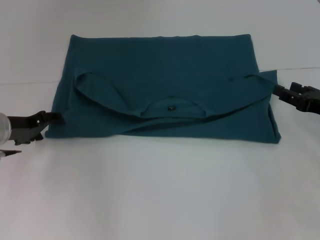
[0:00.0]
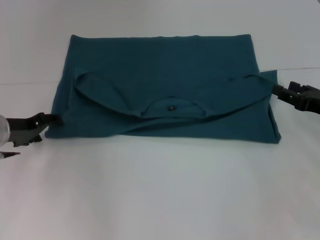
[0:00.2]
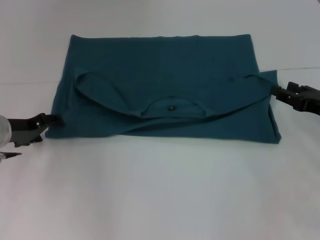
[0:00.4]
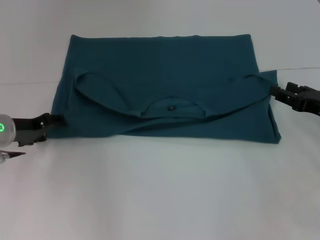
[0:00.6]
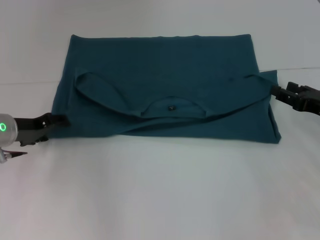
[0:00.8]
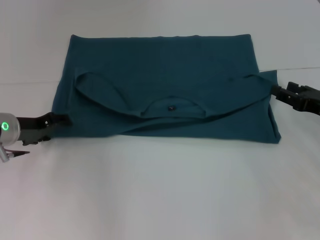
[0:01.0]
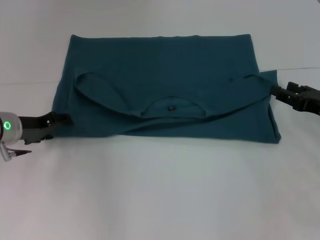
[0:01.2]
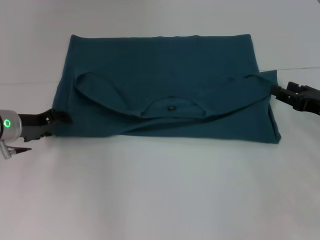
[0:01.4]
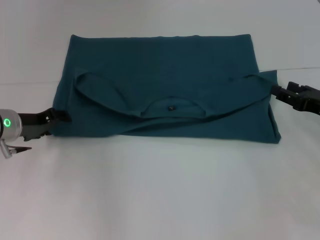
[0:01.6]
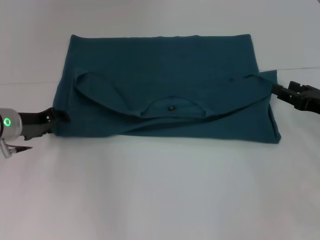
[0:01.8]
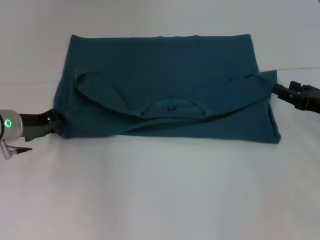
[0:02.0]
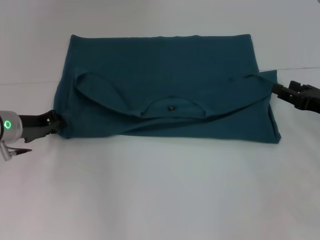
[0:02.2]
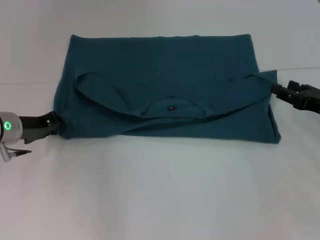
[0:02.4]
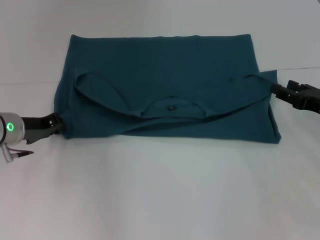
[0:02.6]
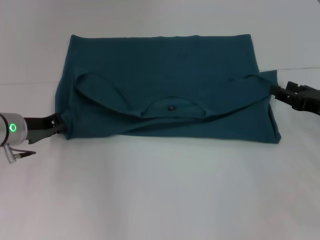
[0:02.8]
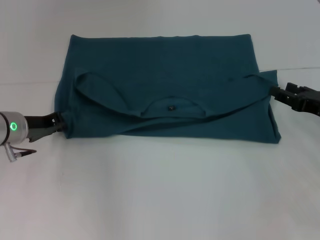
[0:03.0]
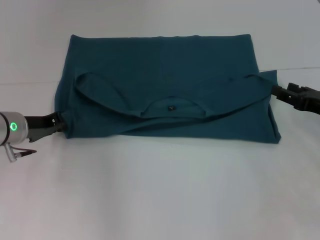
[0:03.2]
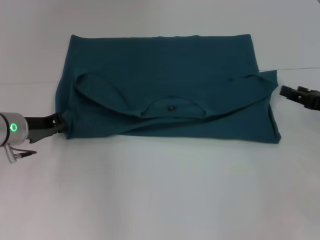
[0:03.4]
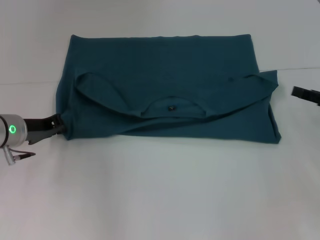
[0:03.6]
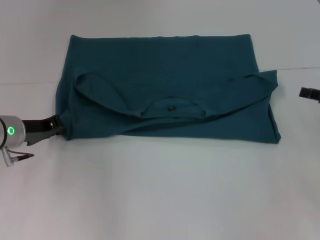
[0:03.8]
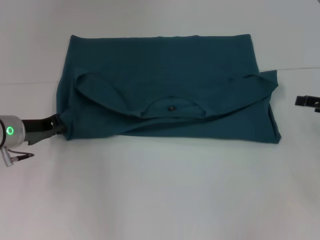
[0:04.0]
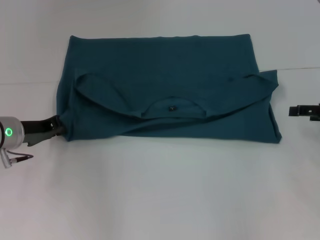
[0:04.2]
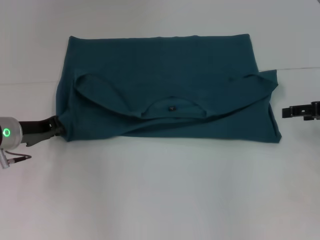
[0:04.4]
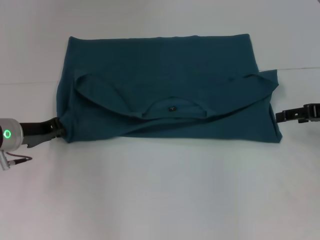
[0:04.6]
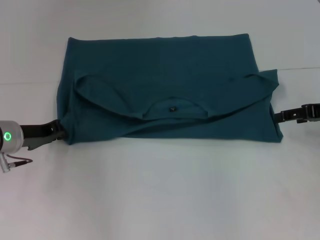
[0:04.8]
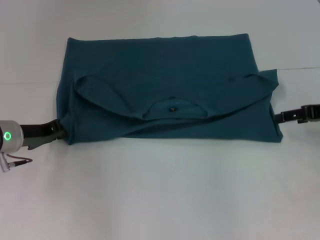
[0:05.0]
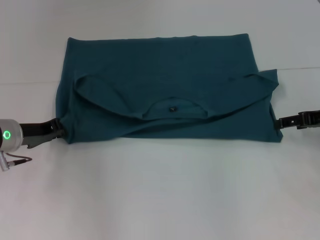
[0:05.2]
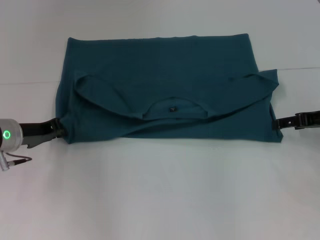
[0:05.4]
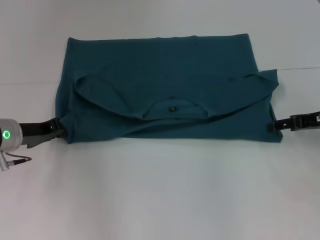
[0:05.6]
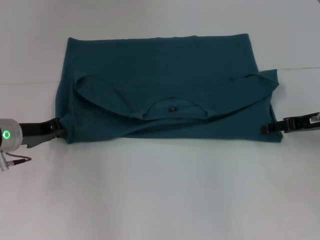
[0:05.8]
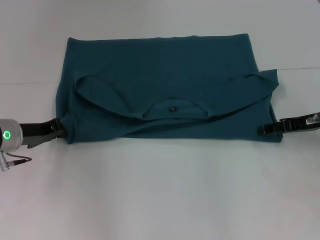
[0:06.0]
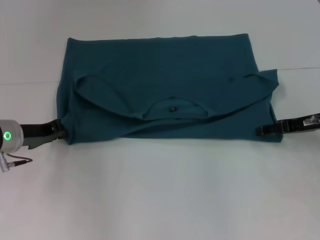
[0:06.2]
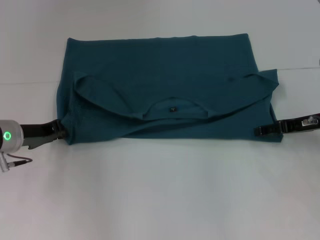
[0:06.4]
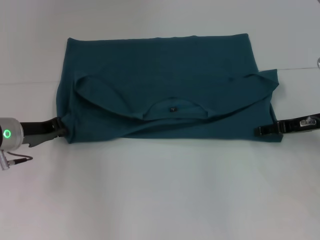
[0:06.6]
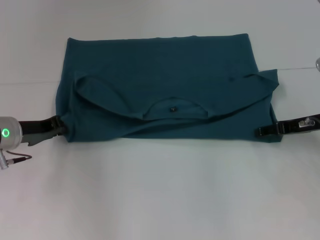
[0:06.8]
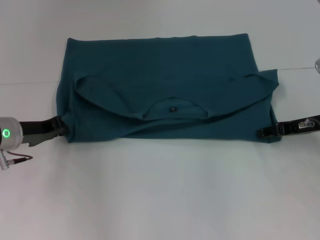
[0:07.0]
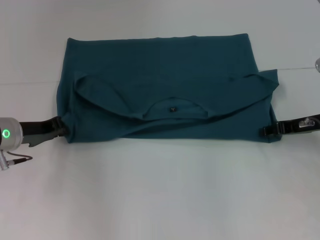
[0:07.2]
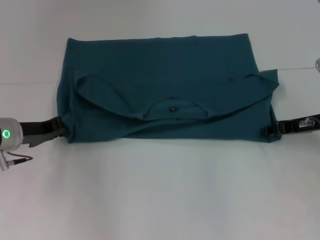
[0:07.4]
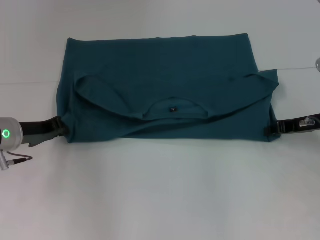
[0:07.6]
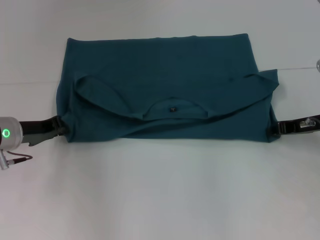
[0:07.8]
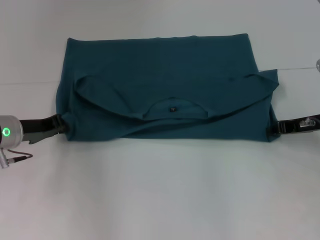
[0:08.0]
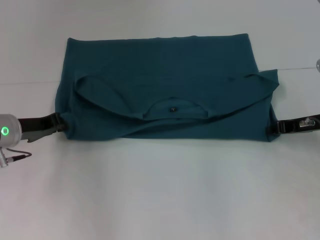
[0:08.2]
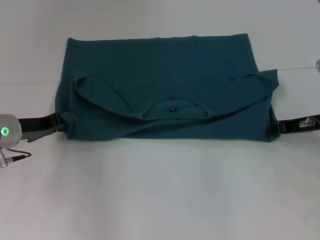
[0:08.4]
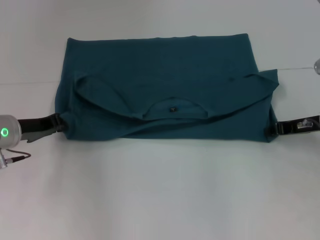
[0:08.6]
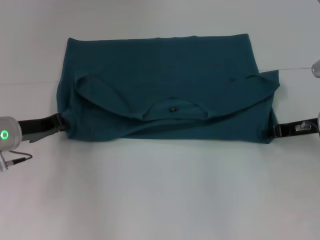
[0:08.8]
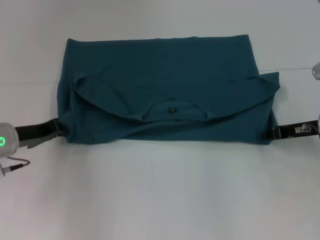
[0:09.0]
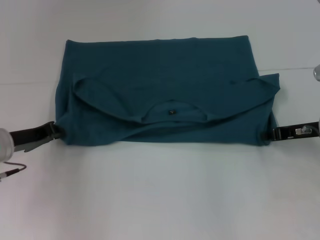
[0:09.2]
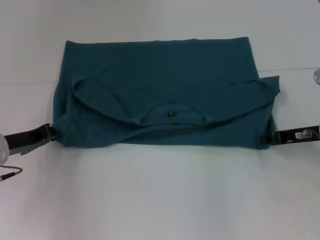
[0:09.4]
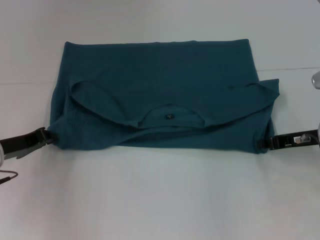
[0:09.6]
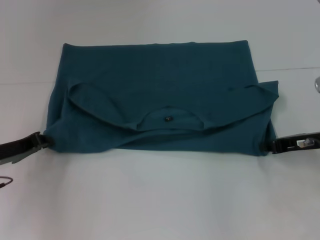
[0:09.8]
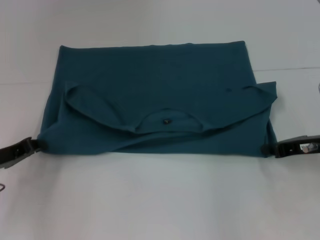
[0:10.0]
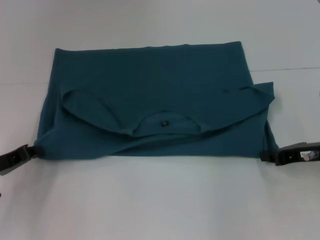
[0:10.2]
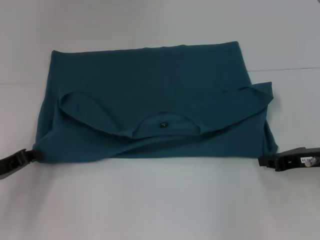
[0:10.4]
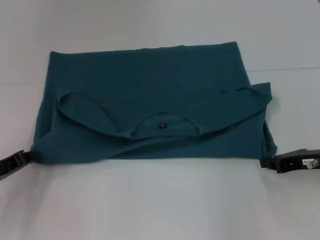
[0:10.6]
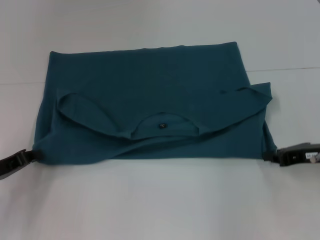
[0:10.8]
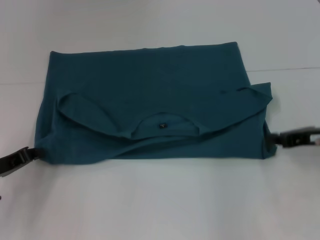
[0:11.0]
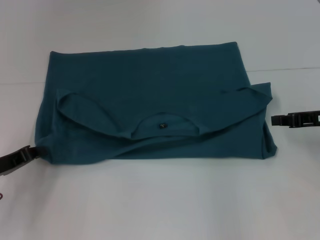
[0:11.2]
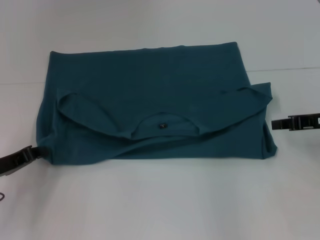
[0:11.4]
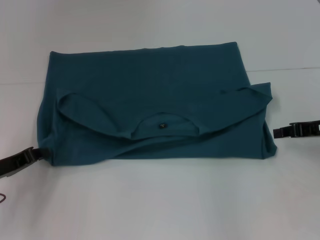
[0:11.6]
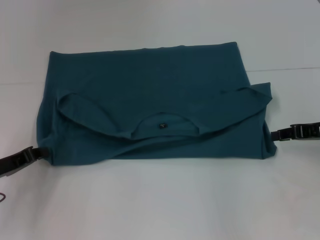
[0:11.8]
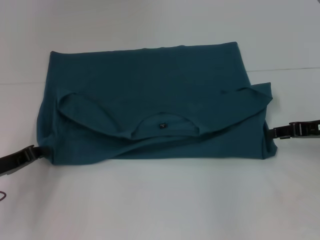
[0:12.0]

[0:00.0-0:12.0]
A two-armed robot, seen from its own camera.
0:00.0 to 0:01.6: The grippers stay close to where they were, moving slightly.
0:01.6 to 0:03.0: The left gripper closes up.
0:03.0 to 0:04.4: The right gripper shifts some 5 cm upward.
0:04.4 to 0:06.0: The right gripper changes place by roughly 5 cm.
0:07.6 to 0:09.0: The grippers move only a little.
0:09.0 to 0:10.4: The right gripper heads backward, covering approximately 5 cm. Meanwhile the left gripper heads backward and to the left, covering roughly 10 cm.
0:10.4 to 0:12.0: The right gripper shifts by about 5 cm.

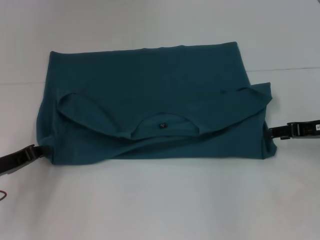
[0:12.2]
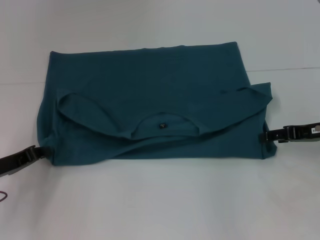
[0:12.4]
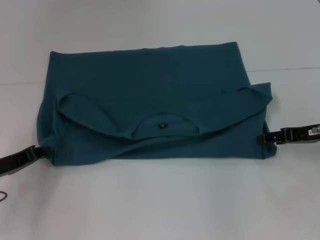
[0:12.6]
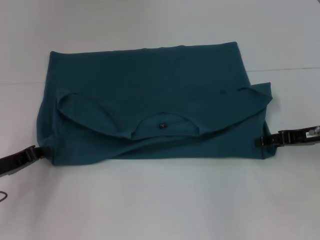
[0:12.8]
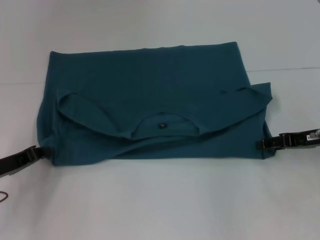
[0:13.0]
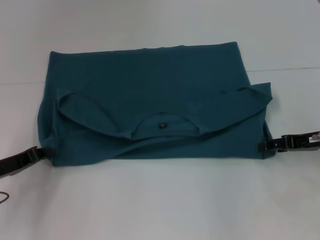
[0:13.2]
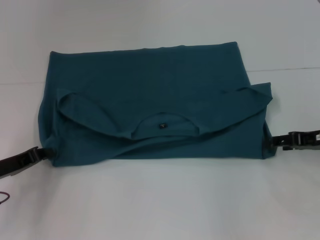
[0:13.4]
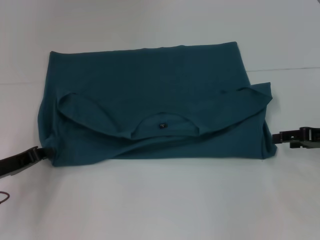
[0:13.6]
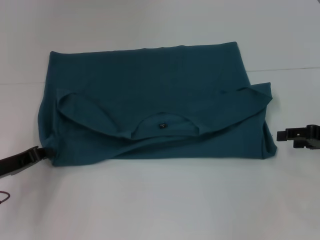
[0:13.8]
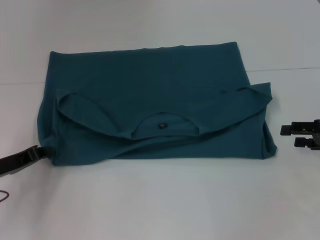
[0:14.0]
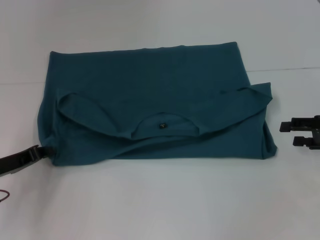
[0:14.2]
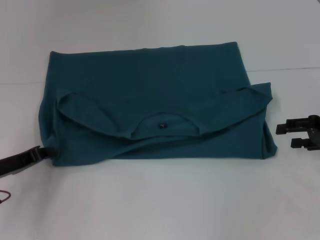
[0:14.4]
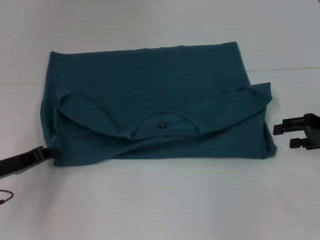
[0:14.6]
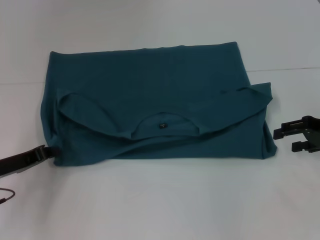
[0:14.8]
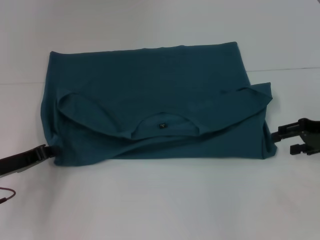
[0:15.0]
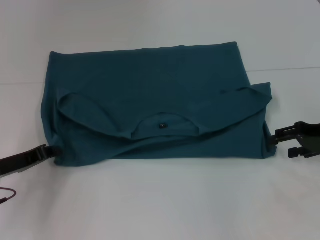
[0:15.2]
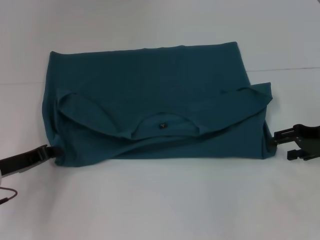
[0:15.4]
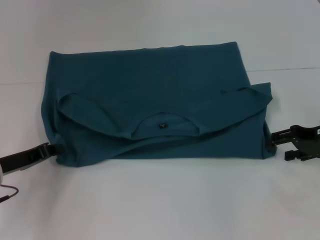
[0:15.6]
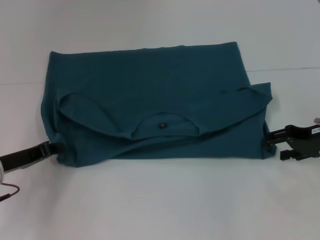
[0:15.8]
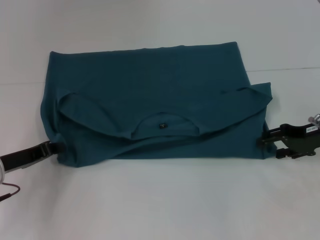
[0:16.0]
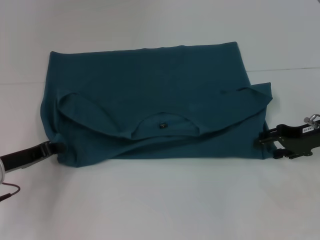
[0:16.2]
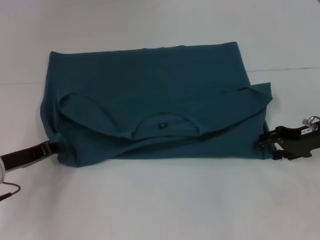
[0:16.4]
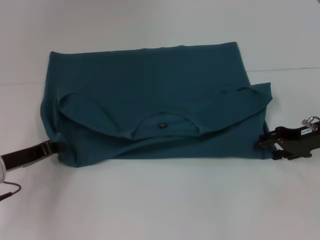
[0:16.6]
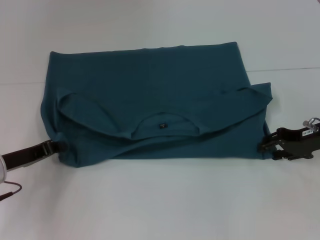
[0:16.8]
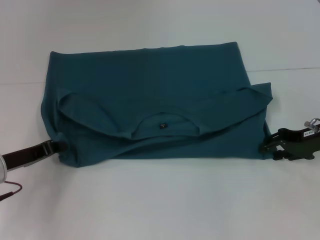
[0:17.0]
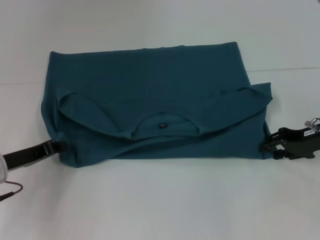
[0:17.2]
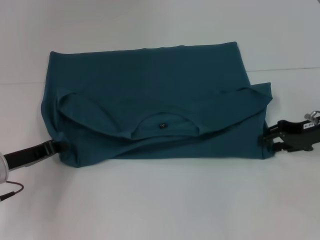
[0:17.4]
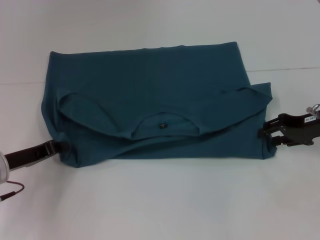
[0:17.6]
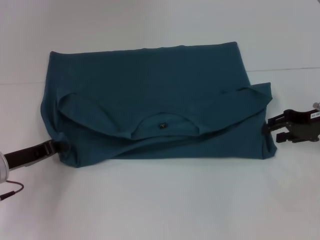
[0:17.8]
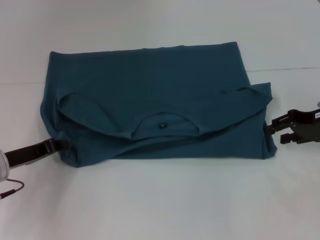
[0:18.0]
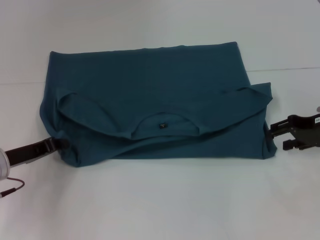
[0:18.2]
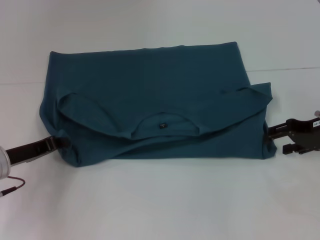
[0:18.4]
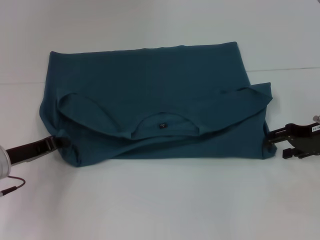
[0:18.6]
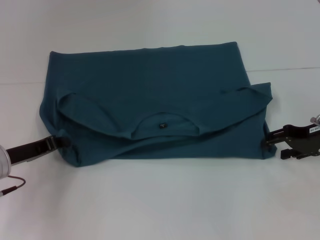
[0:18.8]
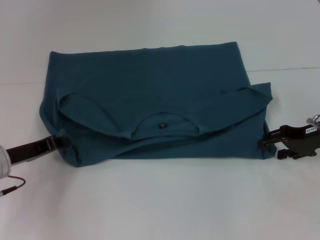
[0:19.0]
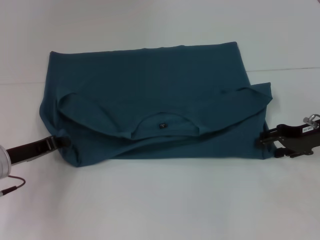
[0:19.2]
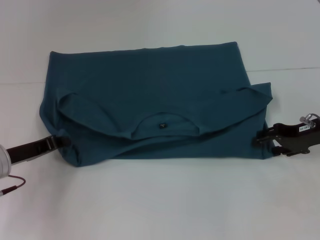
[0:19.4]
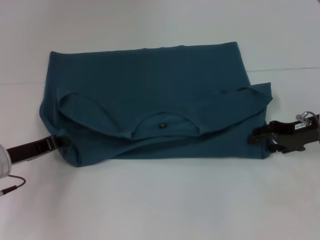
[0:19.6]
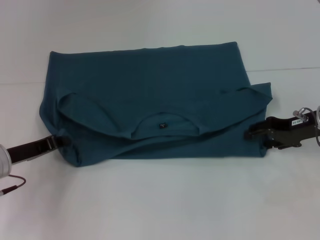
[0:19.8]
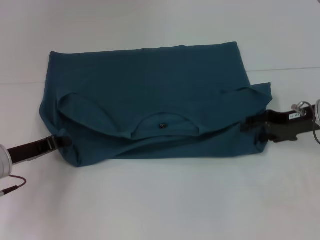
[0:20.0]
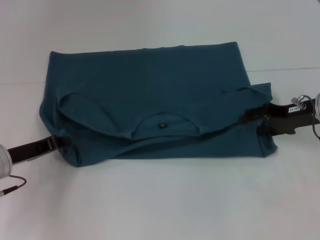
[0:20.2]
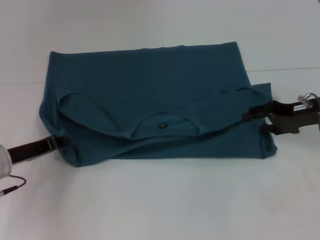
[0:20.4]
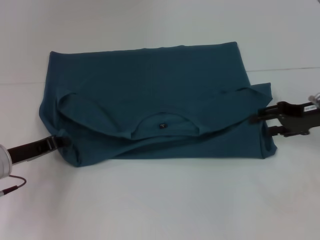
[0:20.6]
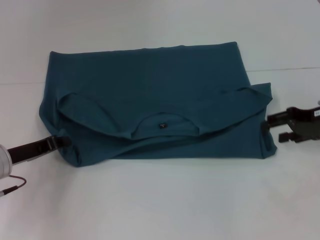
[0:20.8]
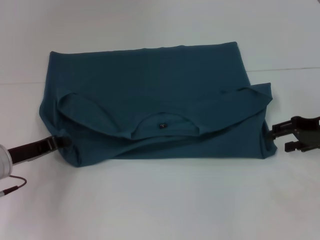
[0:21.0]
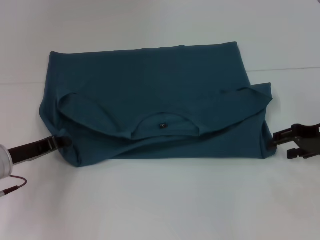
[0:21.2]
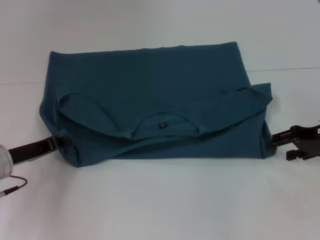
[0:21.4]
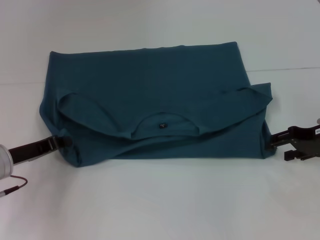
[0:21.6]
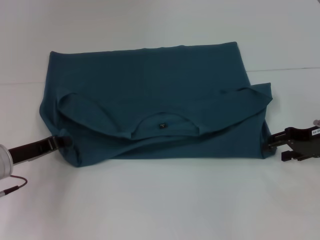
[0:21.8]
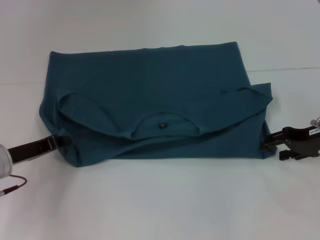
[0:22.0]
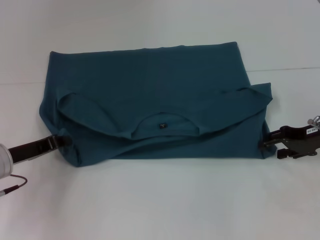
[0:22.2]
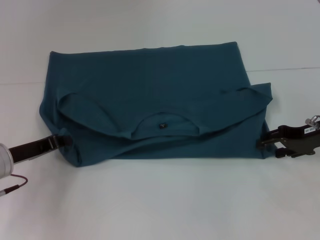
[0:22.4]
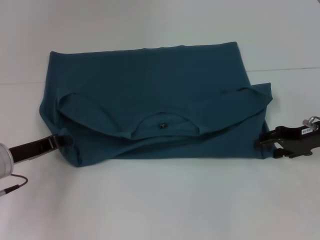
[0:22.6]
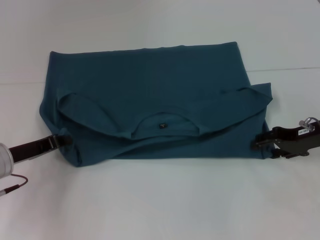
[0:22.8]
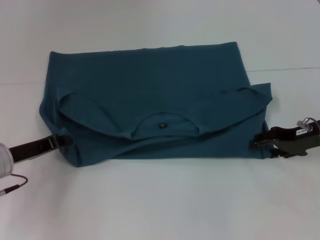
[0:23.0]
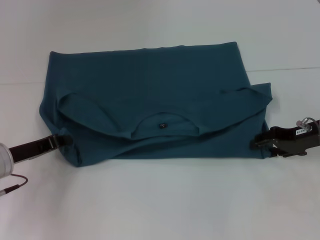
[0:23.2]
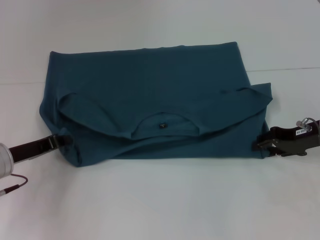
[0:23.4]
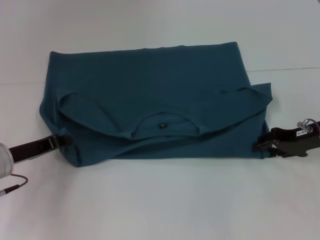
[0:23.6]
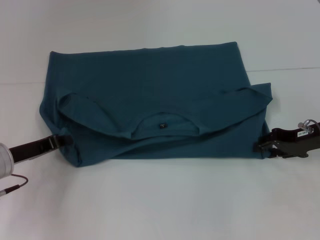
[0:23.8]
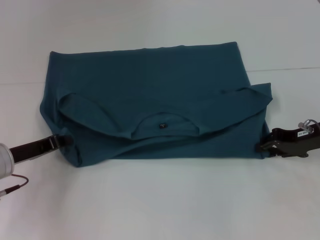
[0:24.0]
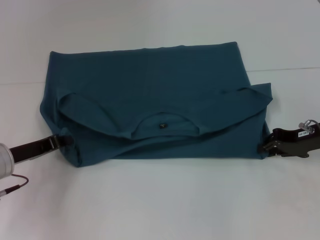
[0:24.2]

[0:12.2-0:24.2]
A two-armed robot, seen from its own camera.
0:12.2 to 0:13.8: The grippers move only a little.
0:13.8 to 0:15.2: The grippers stay close to where they were, moving slightly.
0:15.2 to 0:22.6: The grippers stay close to where they were, moving slightly.
0:22.6 to 0:24.2: The right gripper closes its fingers.
